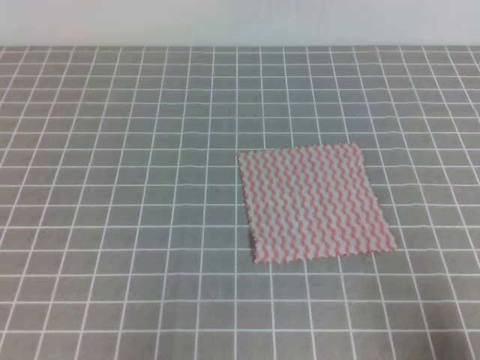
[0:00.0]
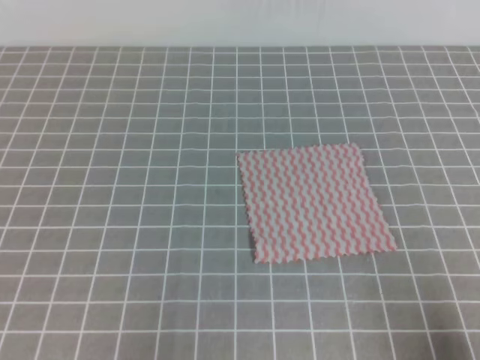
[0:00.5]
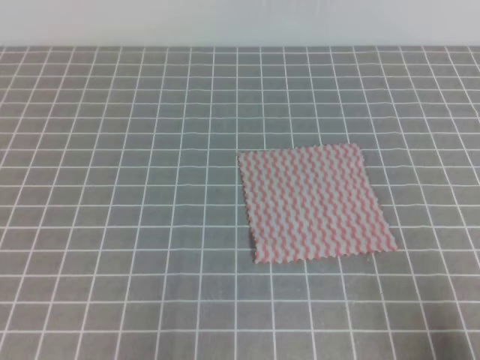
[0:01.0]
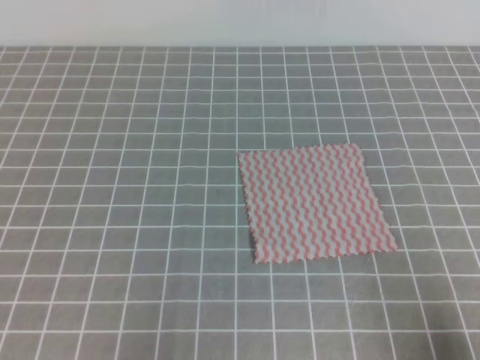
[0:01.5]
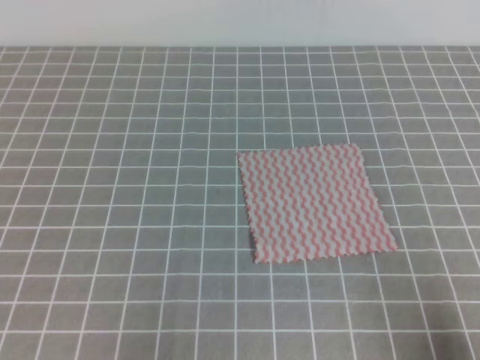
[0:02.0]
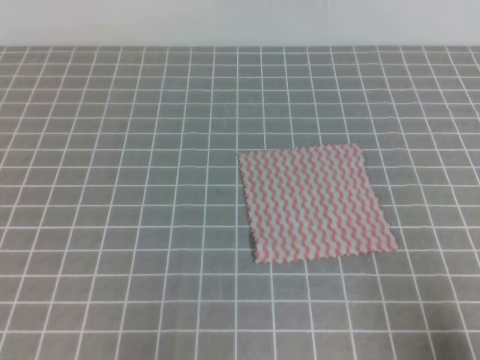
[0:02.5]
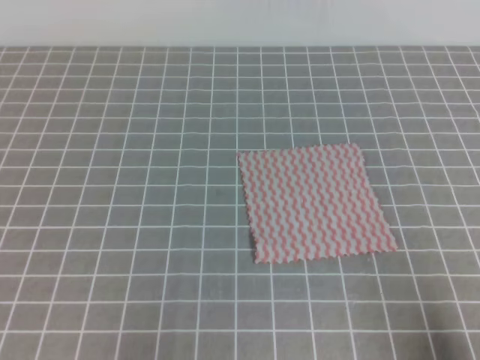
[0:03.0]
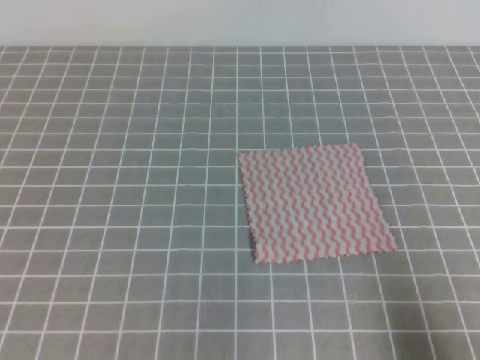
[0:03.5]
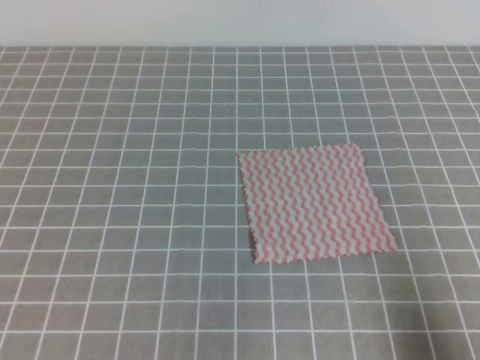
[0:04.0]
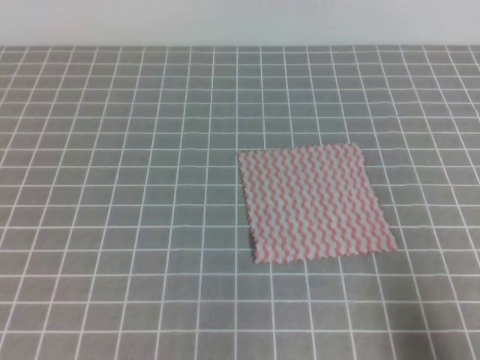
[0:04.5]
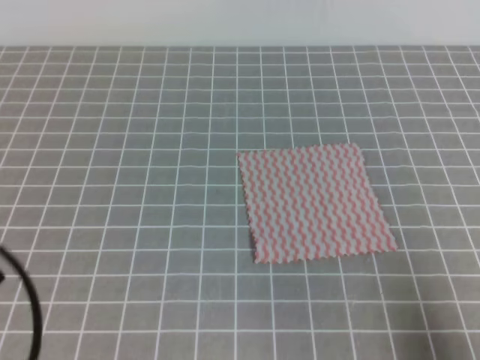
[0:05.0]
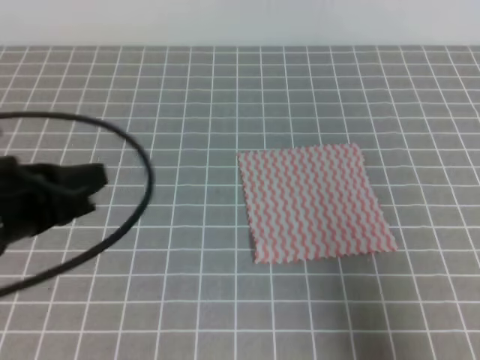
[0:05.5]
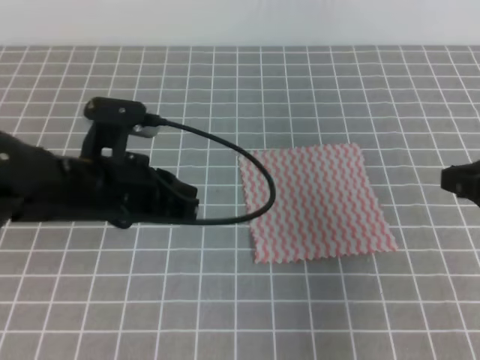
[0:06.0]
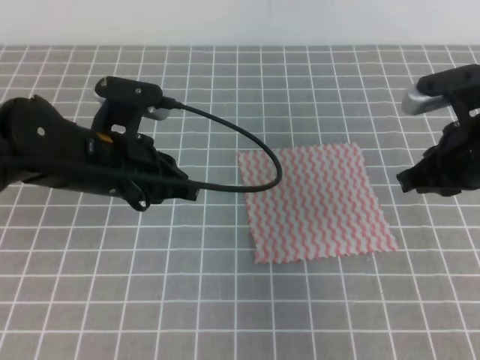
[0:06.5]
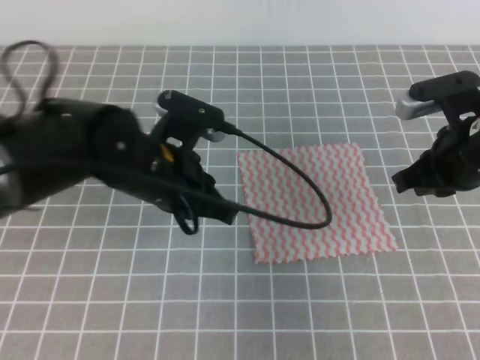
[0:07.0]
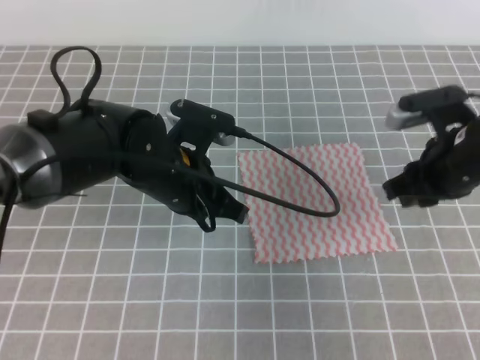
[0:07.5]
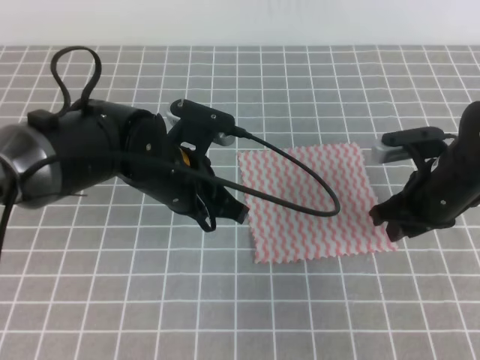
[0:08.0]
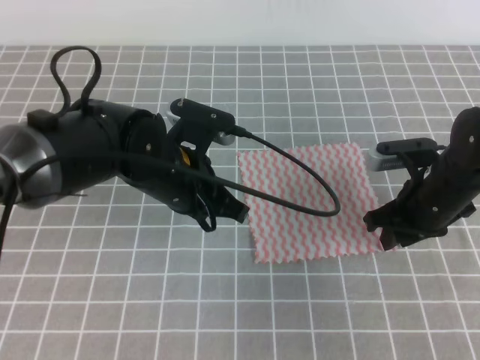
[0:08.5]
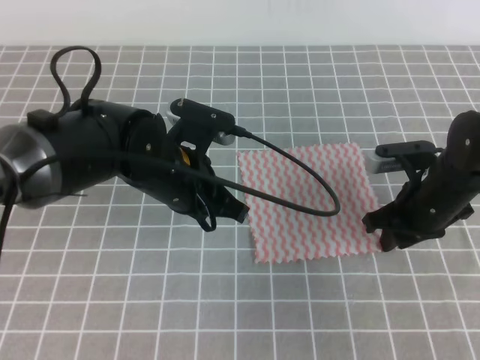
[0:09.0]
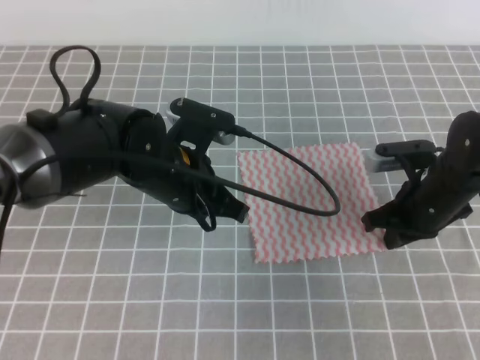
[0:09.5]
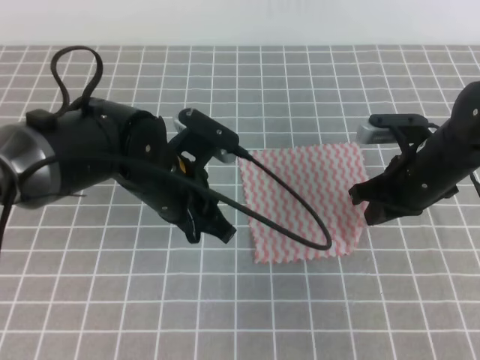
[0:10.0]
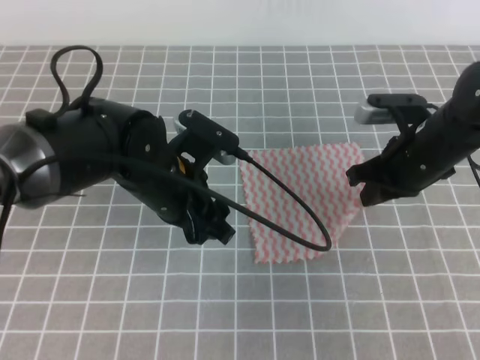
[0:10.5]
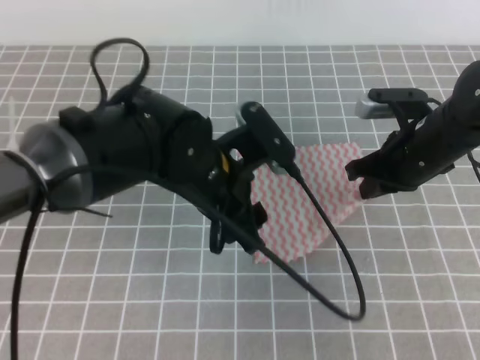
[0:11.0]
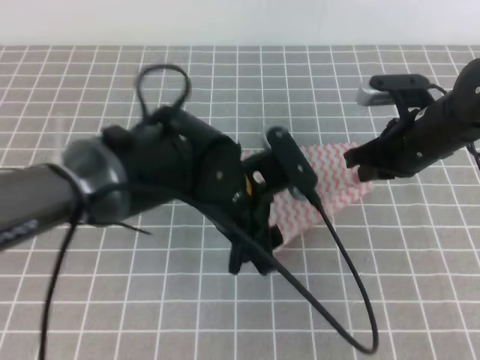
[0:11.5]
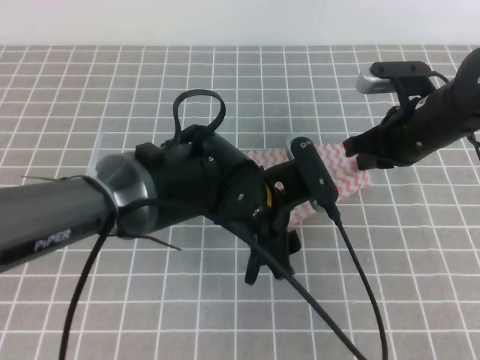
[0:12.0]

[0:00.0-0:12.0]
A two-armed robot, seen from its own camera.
0:04.0 to 0:06.0: The right gripper moves forward and upward, roughly 15 cm. The left gripper goes roughly 25 cm forward and to the right.
0:06.0 to 0:08.0: The right gripper is displaced forward, downward and to the left by approximately 15 cm, and opens its fingers, while the left gripper goes approximately 10 cm to the right and forward.
0:08.0 to 0:10.0: The right gripper closes.
0:10.0 to 0:12.0: The left gripper goes approximately 10 cm to the right, and opens its fingers, while the right gripper shifts by approximately 5 cm.

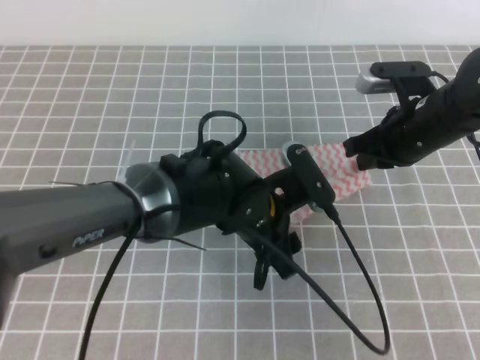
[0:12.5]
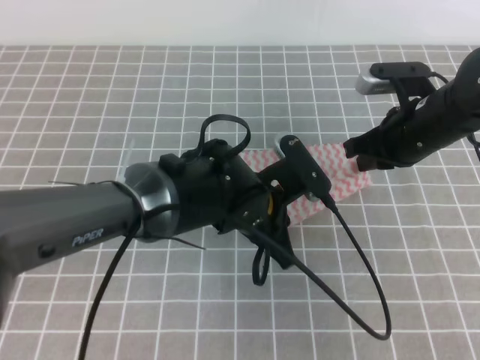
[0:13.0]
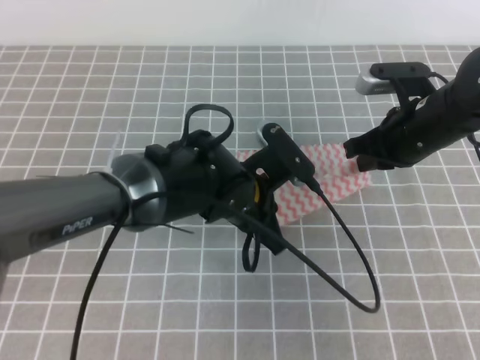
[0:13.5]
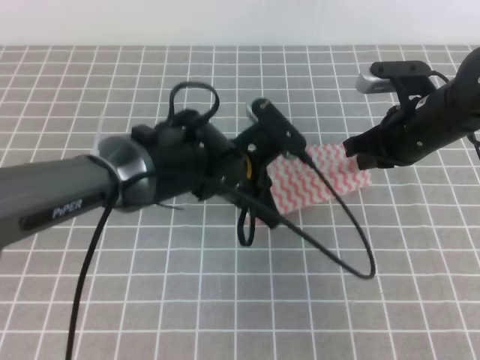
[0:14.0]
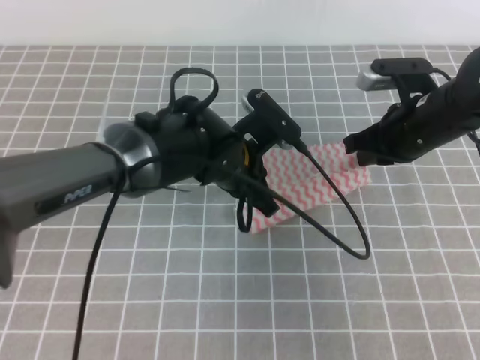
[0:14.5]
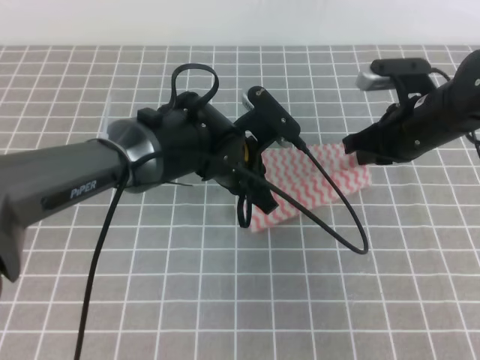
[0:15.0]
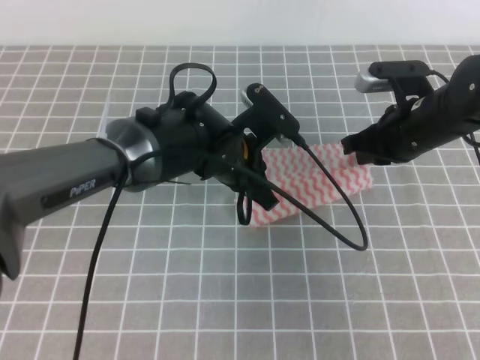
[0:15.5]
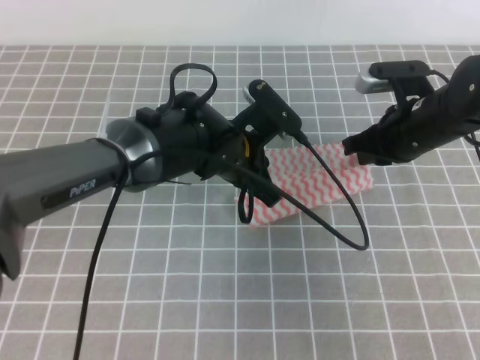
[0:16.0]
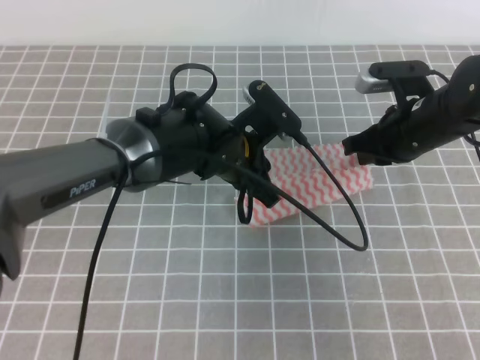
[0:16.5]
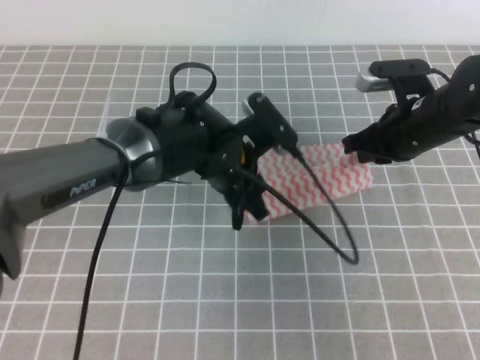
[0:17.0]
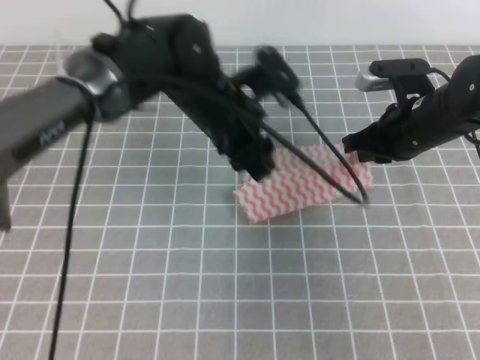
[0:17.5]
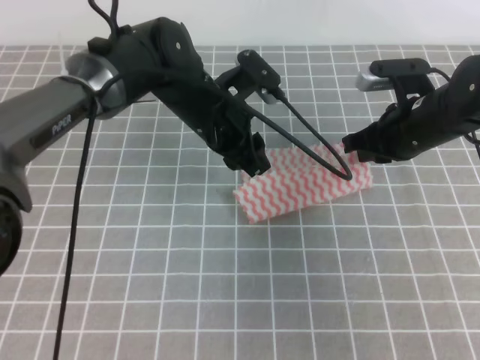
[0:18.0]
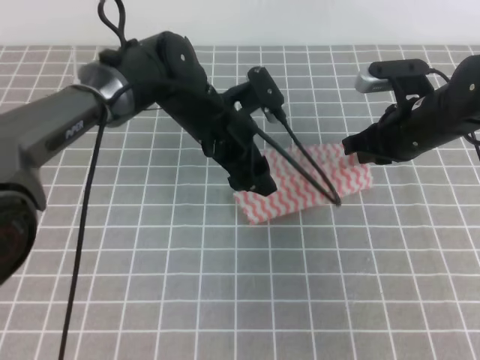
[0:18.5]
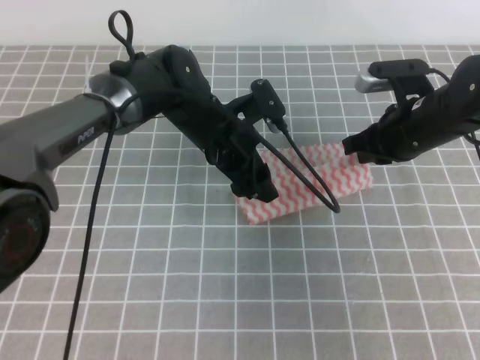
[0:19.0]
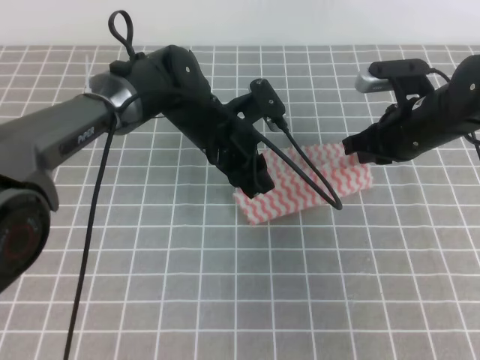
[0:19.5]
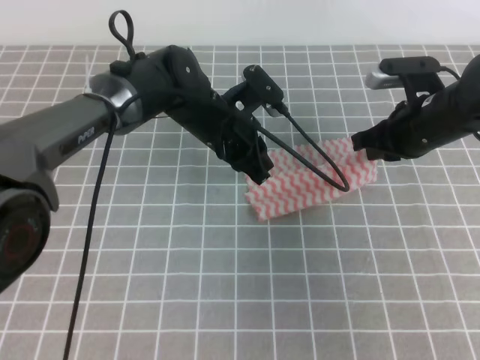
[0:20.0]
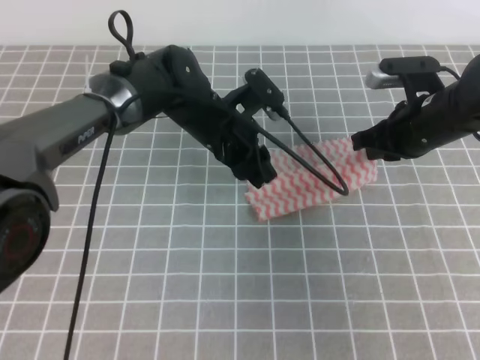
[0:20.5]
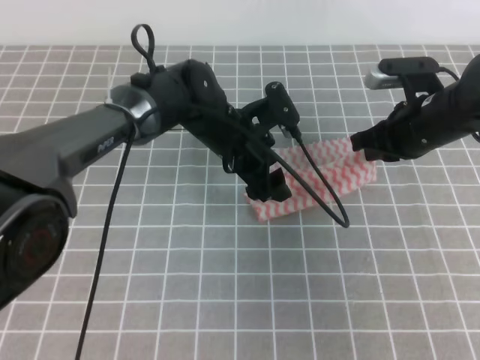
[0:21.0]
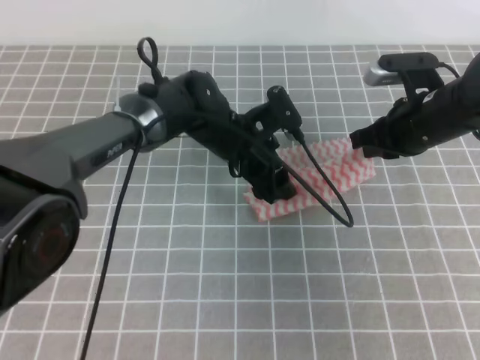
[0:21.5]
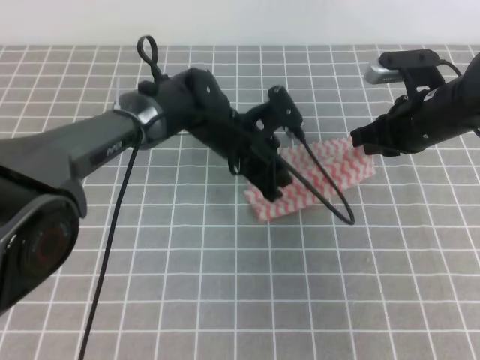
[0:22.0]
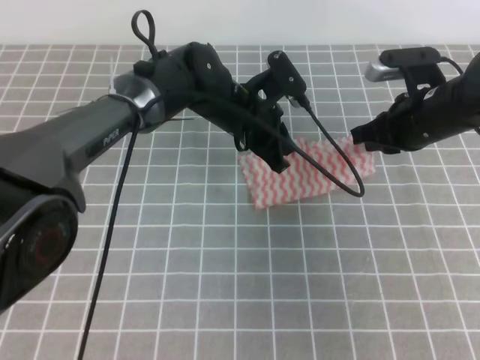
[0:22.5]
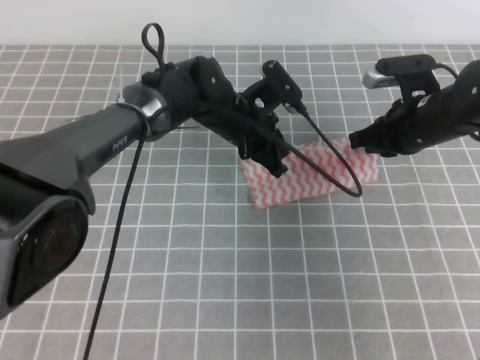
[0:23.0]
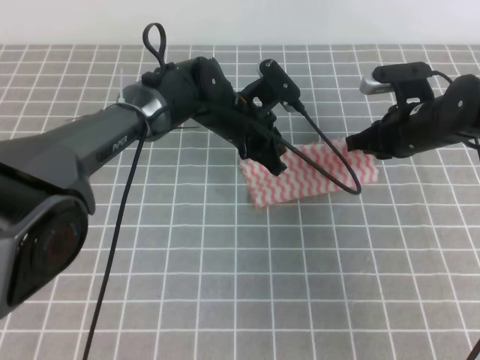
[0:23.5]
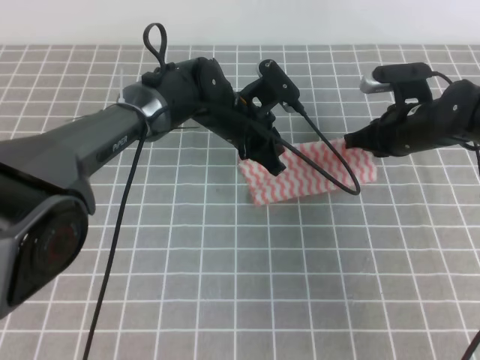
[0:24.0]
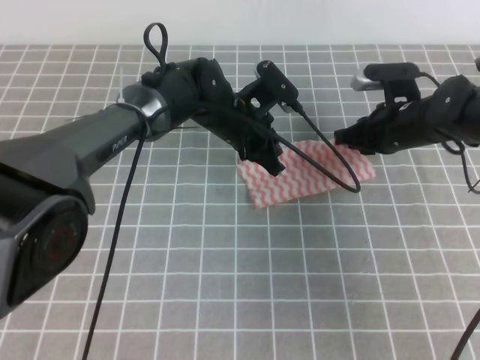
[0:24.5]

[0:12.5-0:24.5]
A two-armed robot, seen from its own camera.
0:12.5 to 0:14.5: The left gripper travels forward by some 5 cm, and closes up.
0:14.5 to 0:16.5: The grippers move only a little.
0:16.5 to 0:18.5: The left gripper ends up roughly 5 cm from where it was, and opens its fingers.
0:18.5 to 0:20.5: The left gripper closes.
0:20.5 to 0:22.5: The left gripper opens, then closes once more.
0:22.5 to 0:24.5: The right gripper moves downward, about 5 cm.

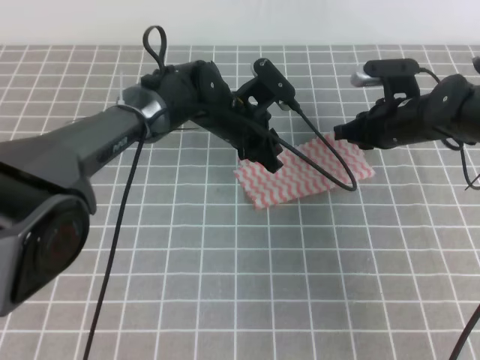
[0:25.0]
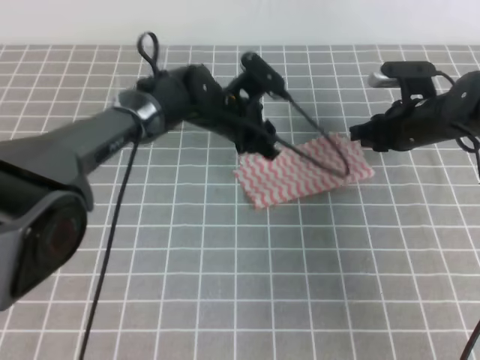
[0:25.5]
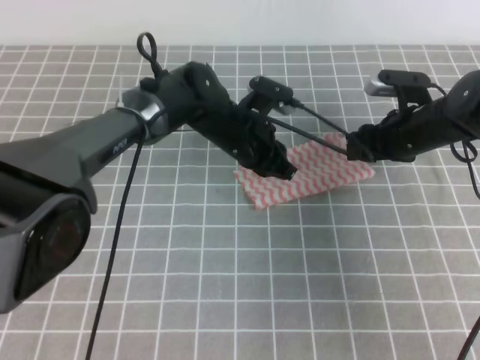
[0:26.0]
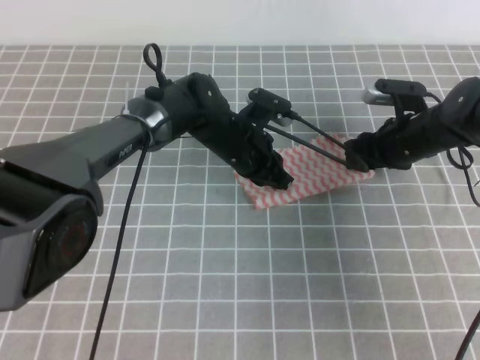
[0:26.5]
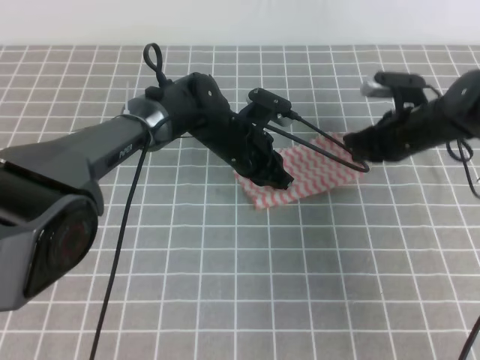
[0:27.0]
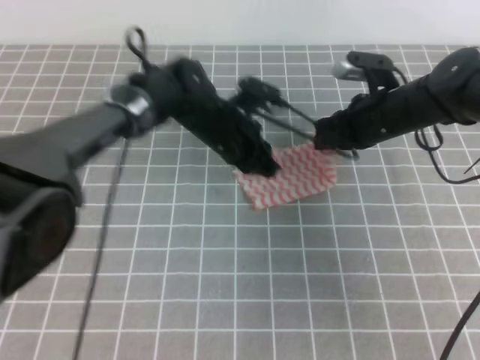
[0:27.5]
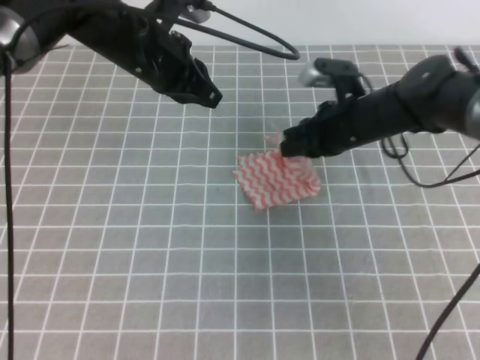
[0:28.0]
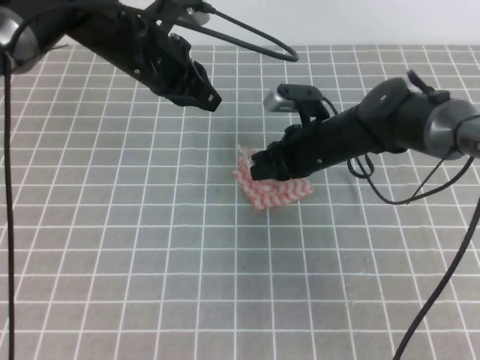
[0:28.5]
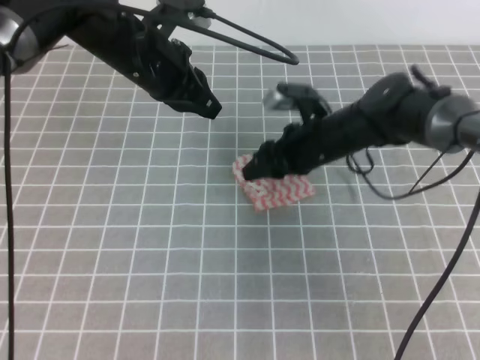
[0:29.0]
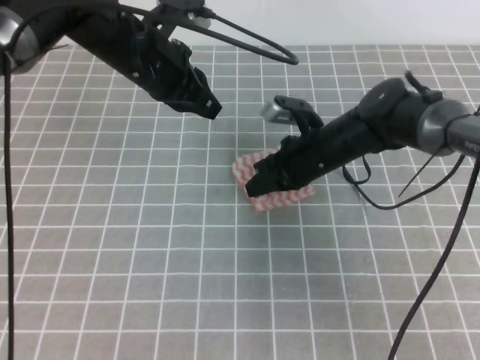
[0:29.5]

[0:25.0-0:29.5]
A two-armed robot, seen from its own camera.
0:25.0 to 0:27.0: The right gripper opens, then closes again.
0:27.0 to 0:29.5: The right gripper shifts roughly 10 cm to the left, and opens and closes again. Meanwhile the left gripper heads upward and to the left, covering roughly 20 cm.
